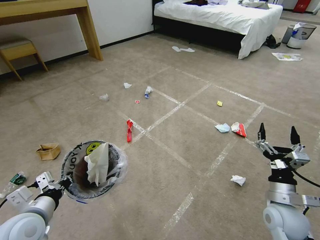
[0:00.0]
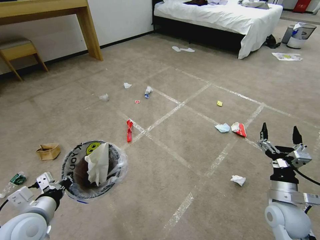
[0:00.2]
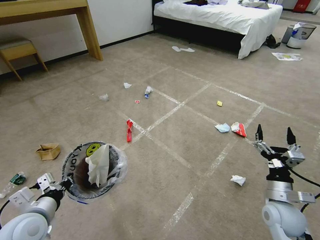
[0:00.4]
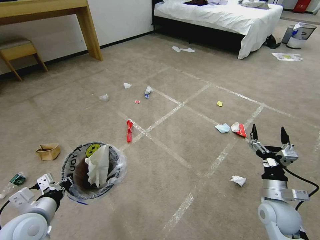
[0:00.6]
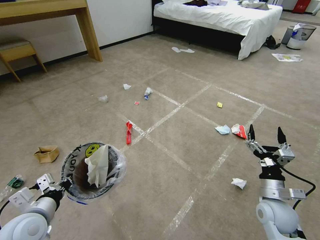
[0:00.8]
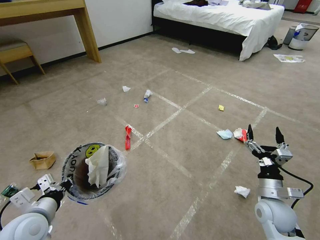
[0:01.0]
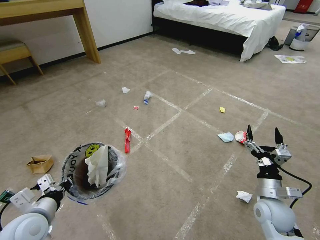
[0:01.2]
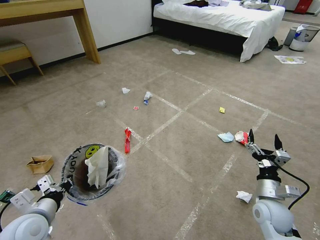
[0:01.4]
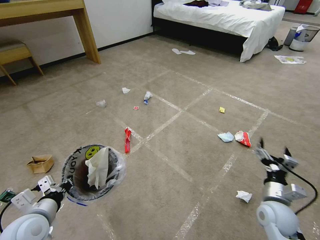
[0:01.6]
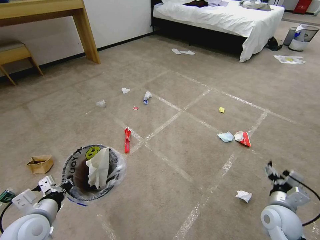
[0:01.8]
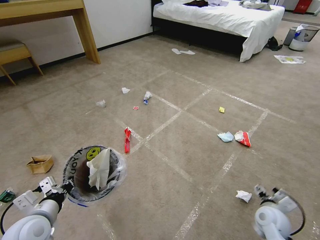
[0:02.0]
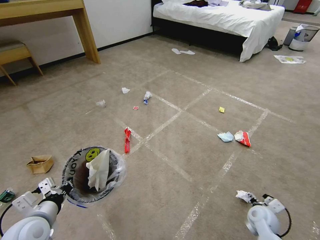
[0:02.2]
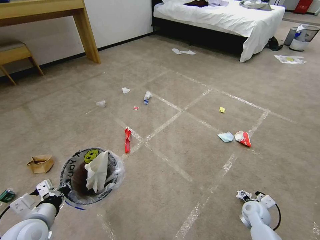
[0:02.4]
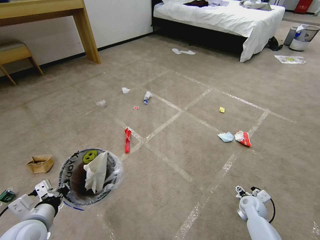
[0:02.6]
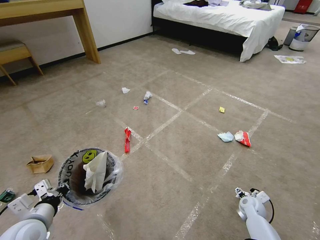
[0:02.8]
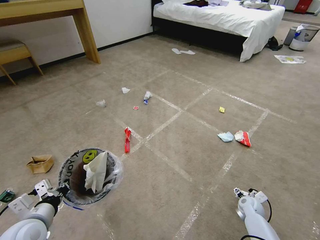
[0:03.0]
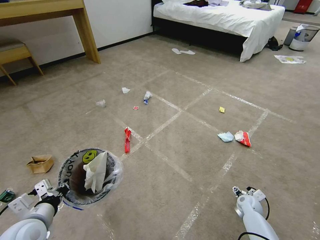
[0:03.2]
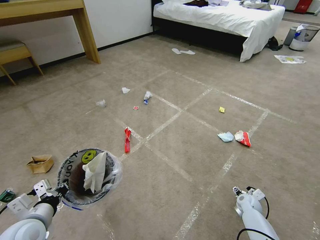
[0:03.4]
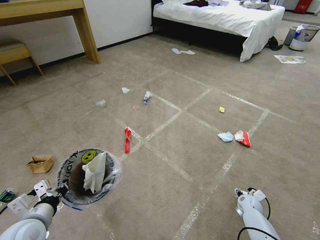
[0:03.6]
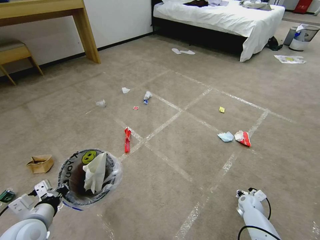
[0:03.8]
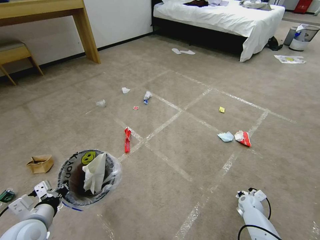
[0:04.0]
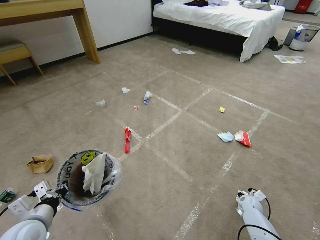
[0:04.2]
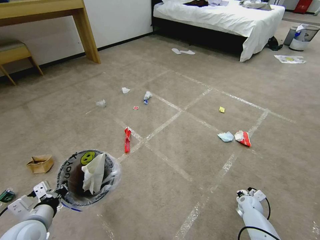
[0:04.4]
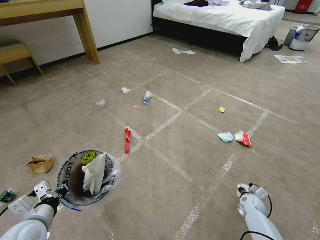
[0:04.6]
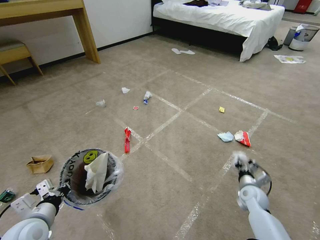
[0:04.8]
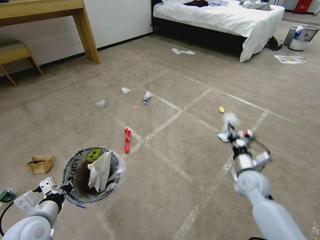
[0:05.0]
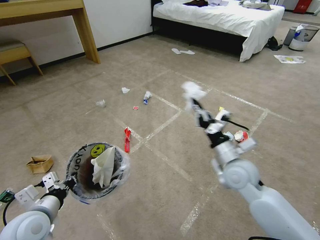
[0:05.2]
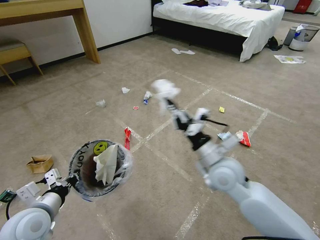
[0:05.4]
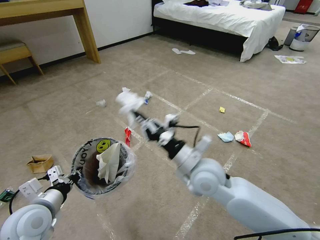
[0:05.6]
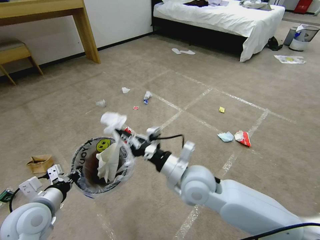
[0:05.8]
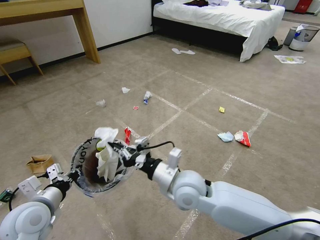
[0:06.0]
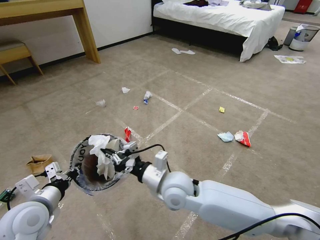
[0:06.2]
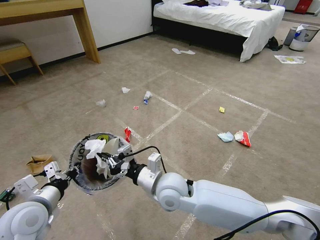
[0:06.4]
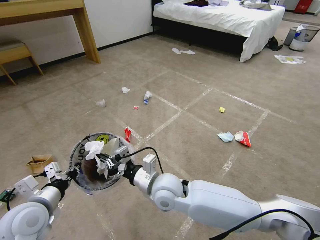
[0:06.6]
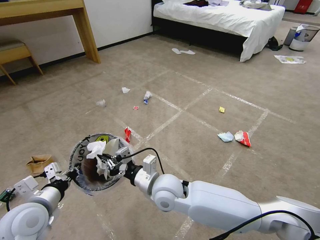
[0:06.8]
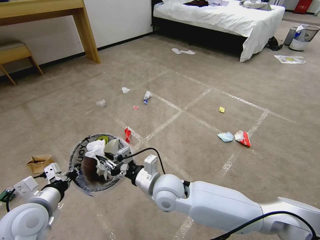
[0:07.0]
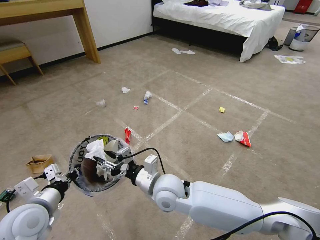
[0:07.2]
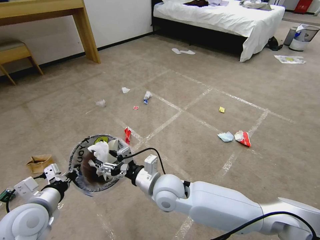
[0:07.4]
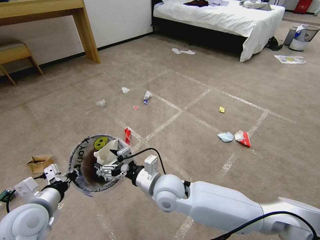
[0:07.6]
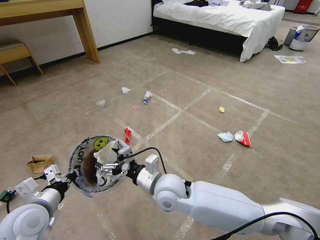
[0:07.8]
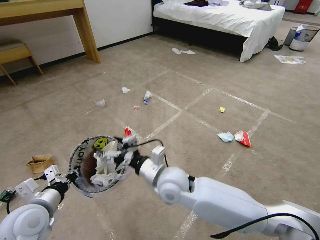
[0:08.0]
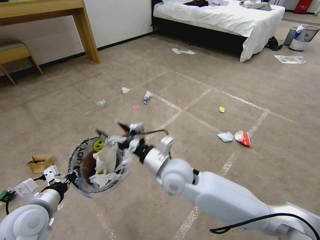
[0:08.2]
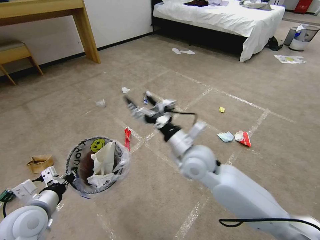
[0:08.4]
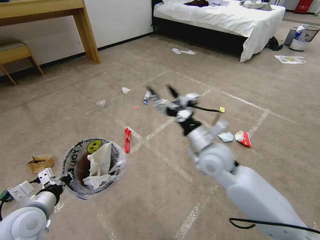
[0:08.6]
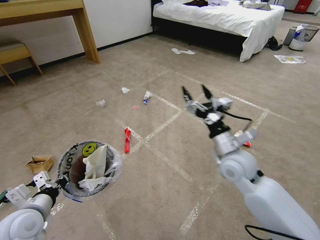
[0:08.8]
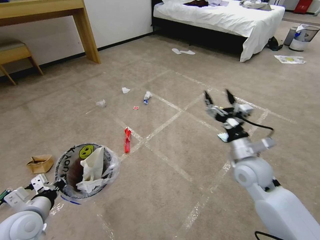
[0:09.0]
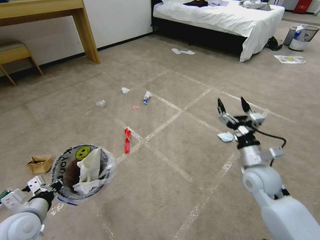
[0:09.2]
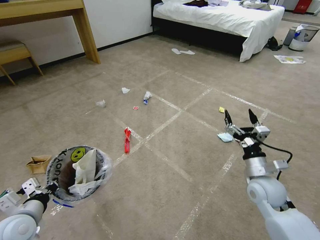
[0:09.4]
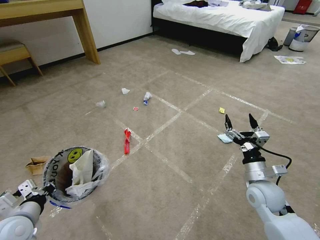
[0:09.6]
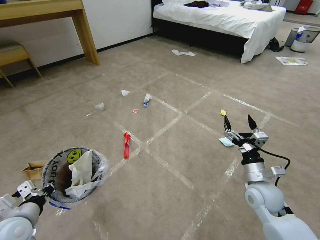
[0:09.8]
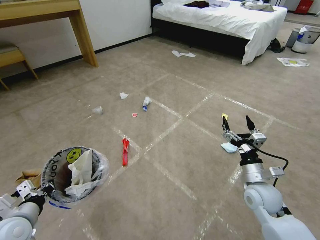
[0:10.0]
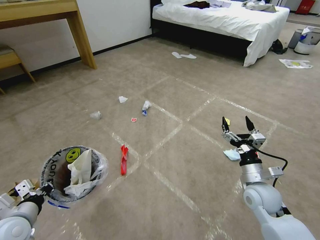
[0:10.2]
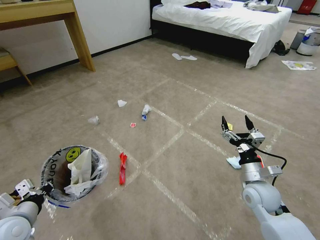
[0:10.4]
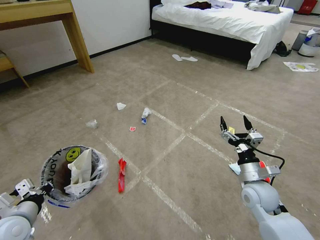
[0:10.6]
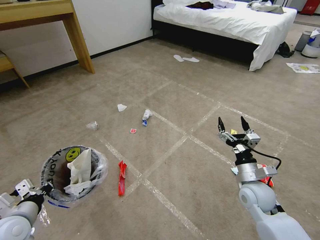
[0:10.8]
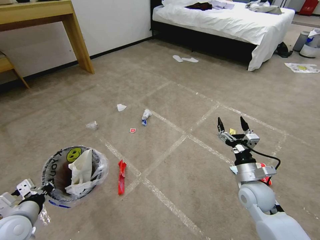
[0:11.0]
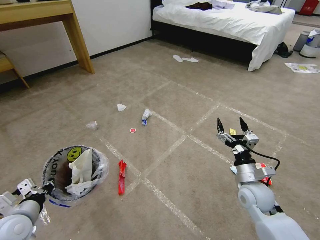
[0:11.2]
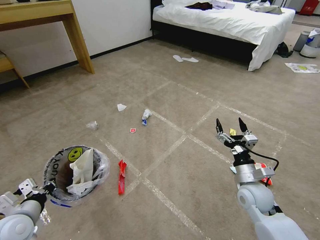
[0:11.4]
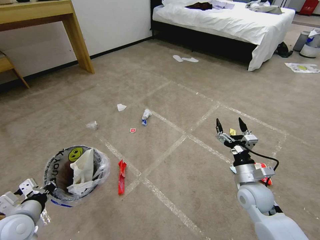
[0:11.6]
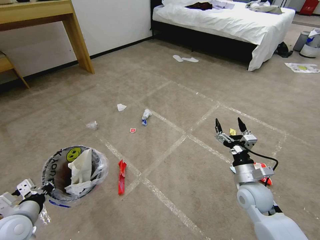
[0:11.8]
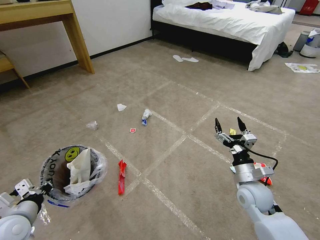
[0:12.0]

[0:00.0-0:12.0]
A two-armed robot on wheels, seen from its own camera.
Task of the whole recording: Pick up the trash bin and place the garbage on the floor into it.
0:01.6 to 0:03.0: The right gripper moves downward and forward, approximately 20 cm.
0:03.0 to 0:04.4: The right gripper closes.
0:04.4 to 0:06.0: The right gripper is displaced to the left and upward by approximately 50 cm. The left gripper changes place by some 5 cm.
0:06.0 to 0:07.6: The right gripper shifts by roughly 5 cm, and opens up.
0:07.6 to 0:09.0: The right gripper heads to the right, covering approximately 25 cm.
0:09.0 to 0:10.4: The right gripper is displaced downward and to the right by roughly 10 cm.
0:10.4 to 0:12.0: The grippers make only small movements.

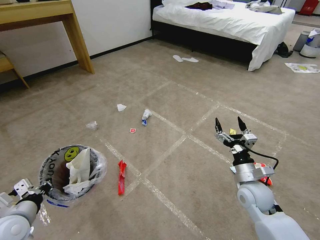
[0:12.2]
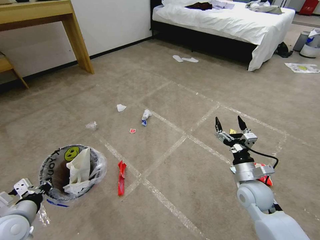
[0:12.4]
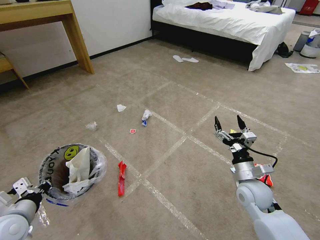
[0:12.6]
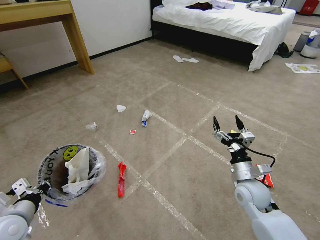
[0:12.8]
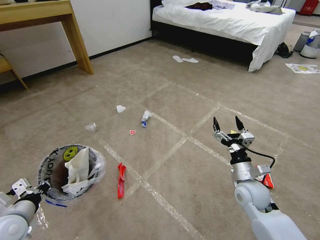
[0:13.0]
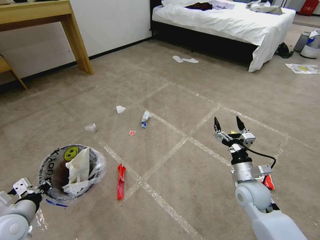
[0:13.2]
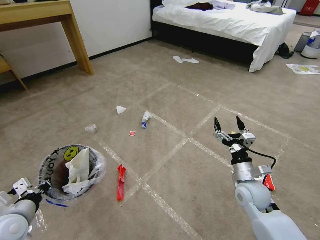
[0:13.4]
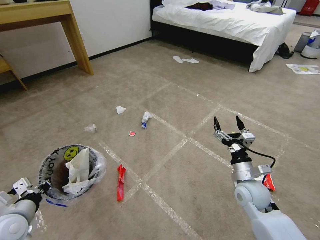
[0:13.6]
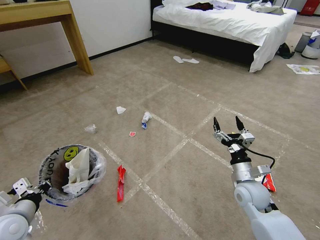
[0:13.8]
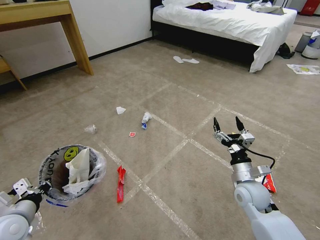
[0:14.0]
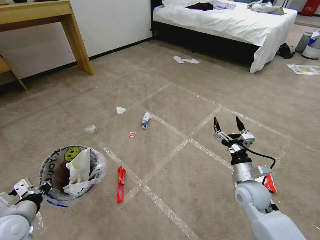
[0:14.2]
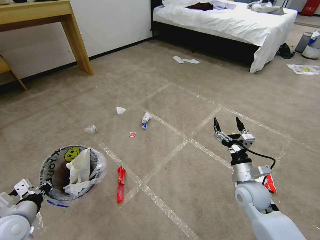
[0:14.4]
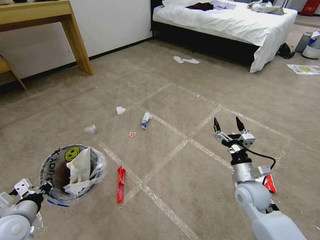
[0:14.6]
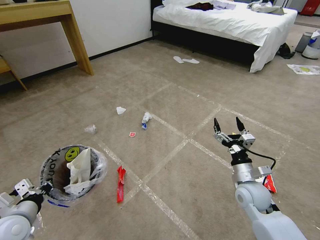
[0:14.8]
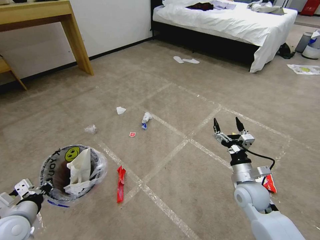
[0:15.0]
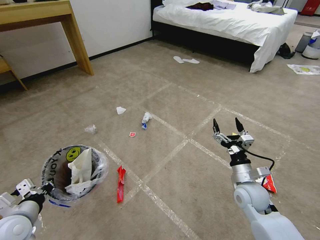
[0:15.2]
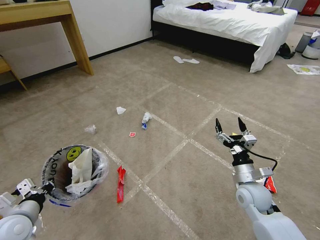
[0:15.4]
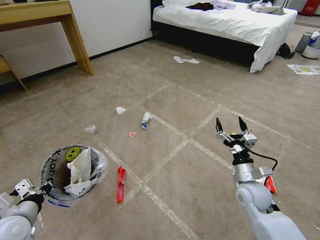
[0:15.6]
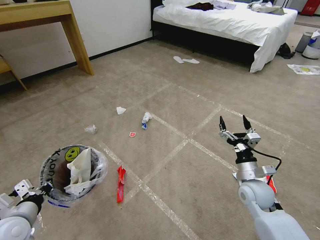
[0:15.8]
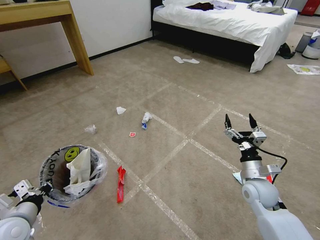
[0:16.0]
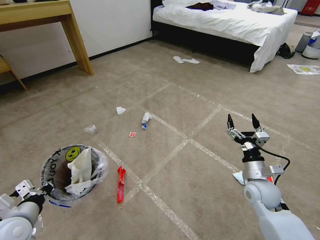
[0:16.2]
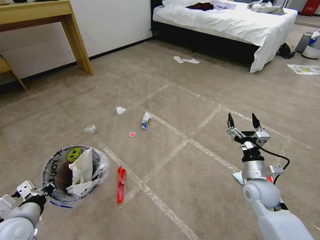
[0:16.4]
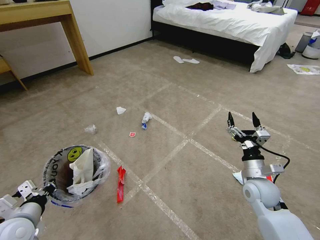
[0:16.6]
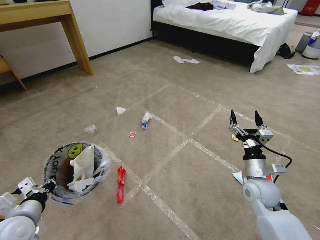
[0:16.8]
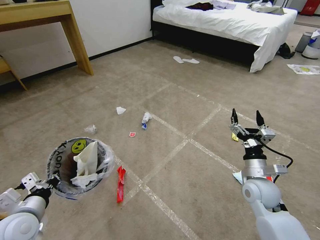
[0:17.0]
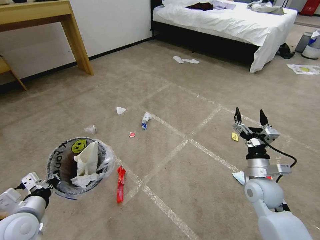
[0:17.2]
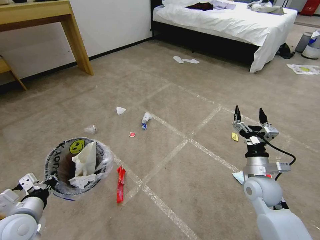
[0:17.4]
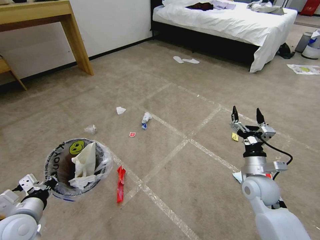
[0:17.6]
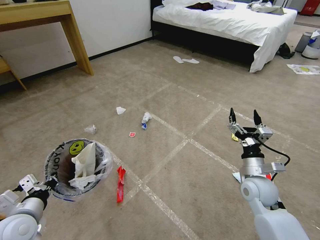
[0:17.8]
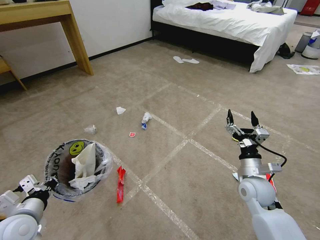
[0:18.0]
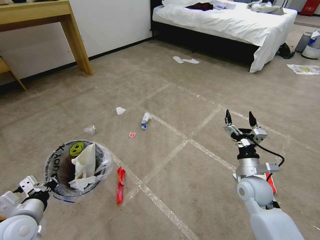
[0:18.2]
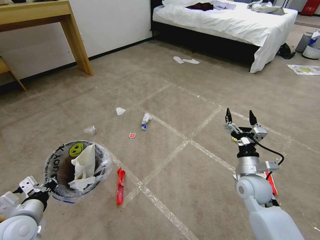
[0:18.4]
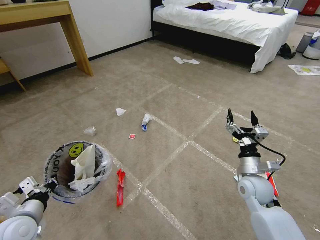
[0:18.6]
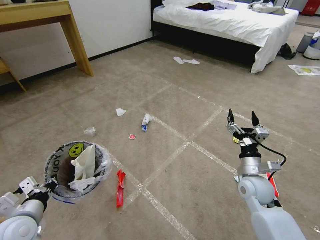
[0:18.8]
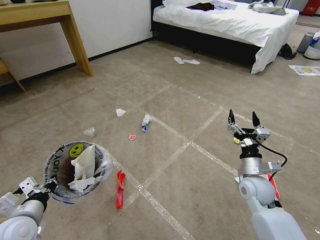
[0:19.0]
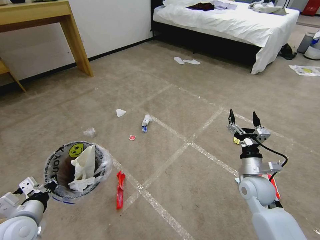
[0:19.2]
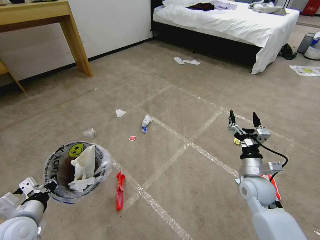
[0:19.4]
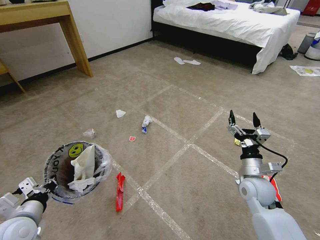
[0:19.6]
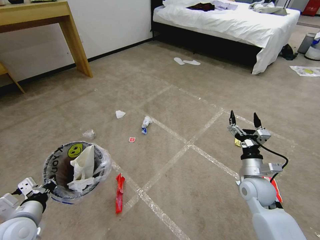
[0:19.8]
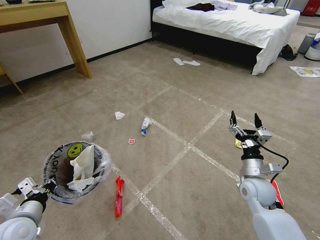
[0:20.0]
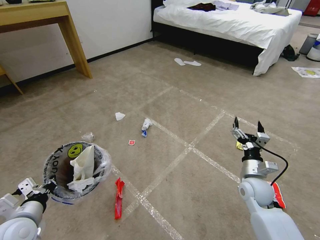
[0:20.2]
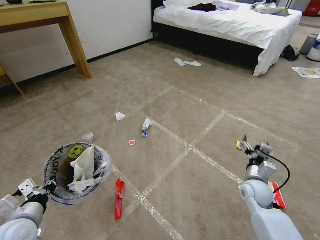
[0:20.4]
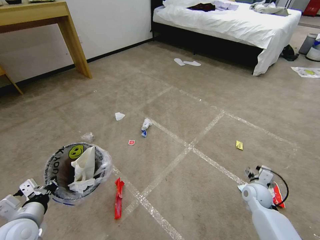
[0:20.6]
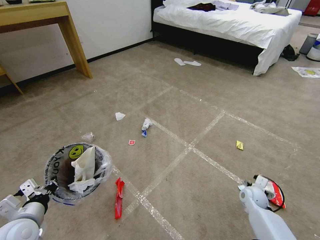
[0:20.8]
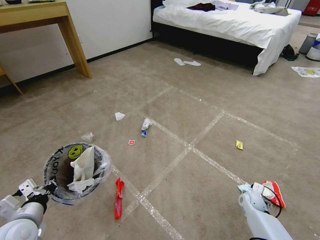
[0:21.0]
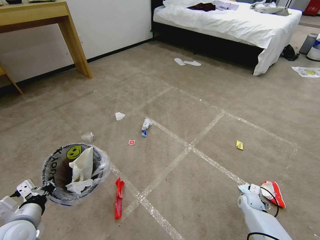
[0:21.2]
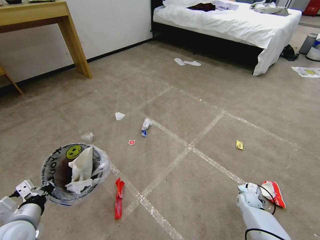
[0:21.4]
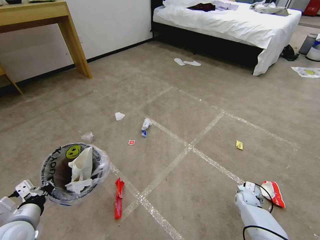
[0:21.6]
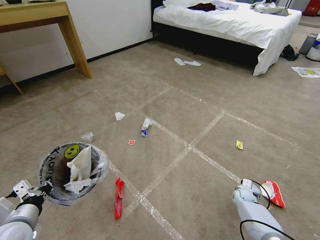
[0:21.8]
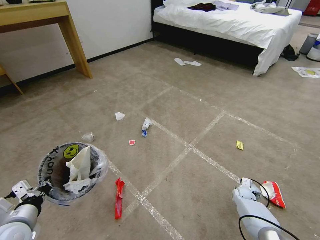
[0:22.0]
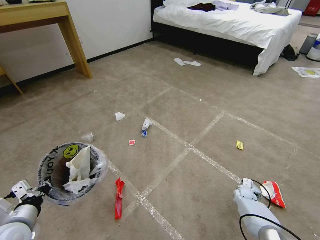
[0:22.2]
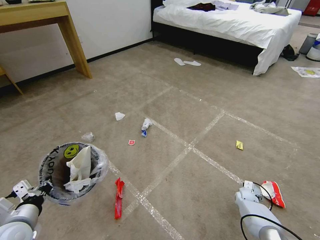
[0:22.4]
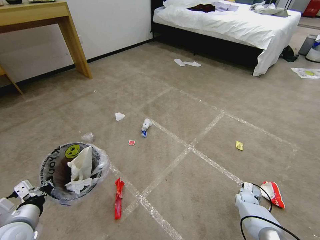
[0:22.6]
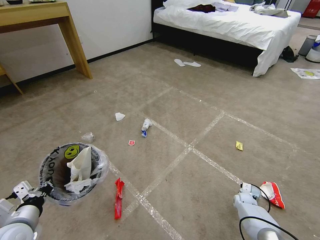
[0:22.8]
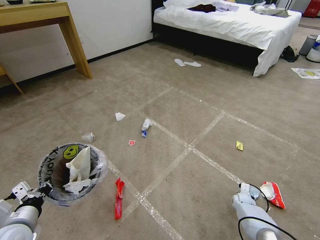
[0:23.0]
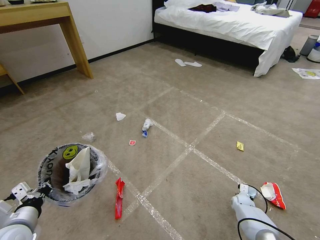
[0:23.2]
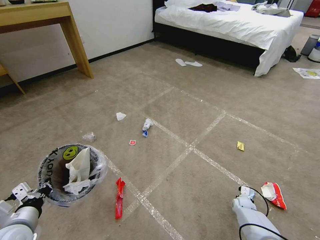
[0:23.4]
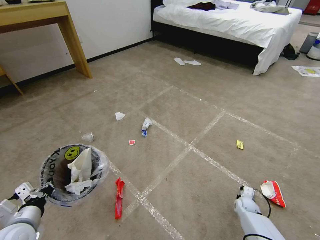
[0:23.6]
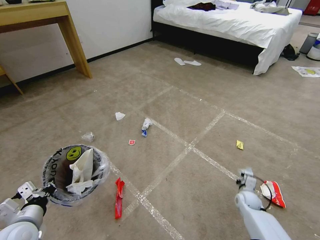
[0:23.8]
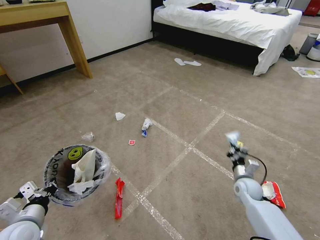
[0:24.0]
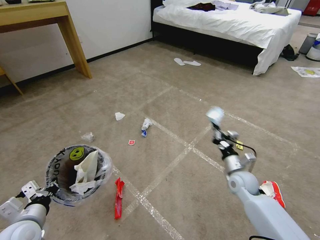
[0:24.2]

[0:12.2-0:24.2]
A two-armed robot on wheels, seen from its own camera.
Task of the whole recording: Pick up the trash bin and place the garbage on the floor into it.
0:12.2 to 0:15.2: Neither gripper changes place.
0:15.2 to 0:18.2: The grippers move only a little.
0:18.2 to 0:19.8: Both grippers stay put.
0:19.8 to 0:21.2: The right gripper goes approximately 25 cm downward and to the right.
0:21.2 to 0:22.6: The grippers make only small movements.
0:22.6 to 0:24.2: The right gripper is displaced upward and to the left by about 20 cm, and closes.
